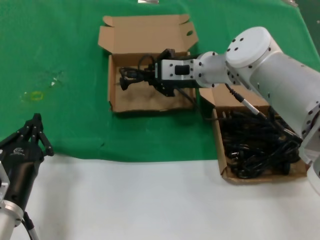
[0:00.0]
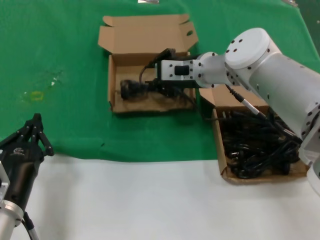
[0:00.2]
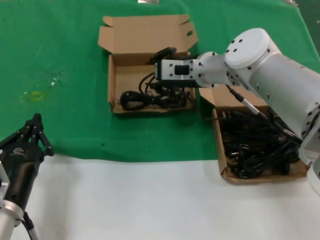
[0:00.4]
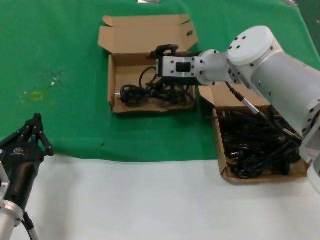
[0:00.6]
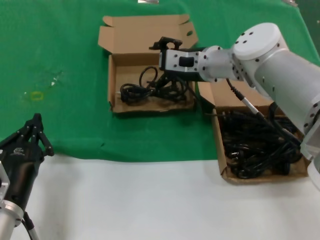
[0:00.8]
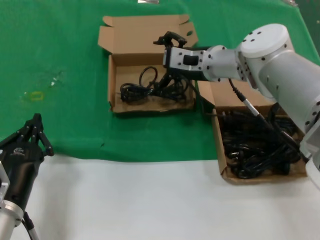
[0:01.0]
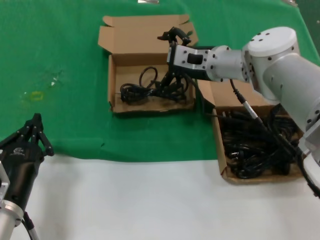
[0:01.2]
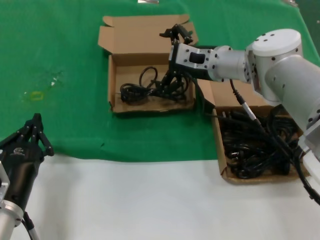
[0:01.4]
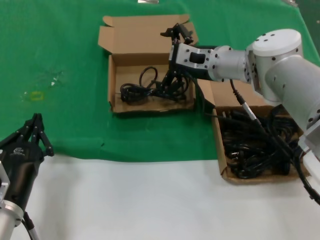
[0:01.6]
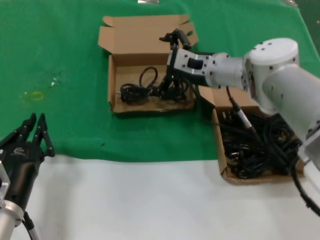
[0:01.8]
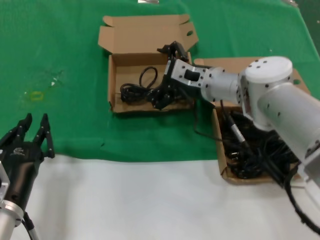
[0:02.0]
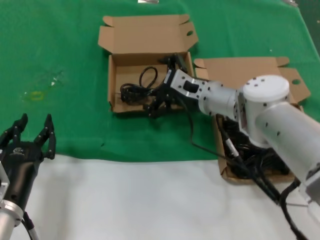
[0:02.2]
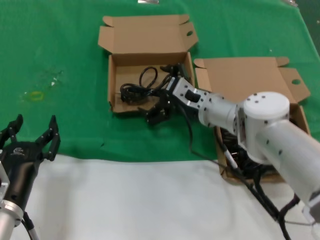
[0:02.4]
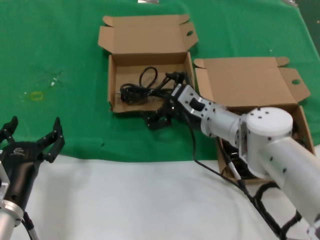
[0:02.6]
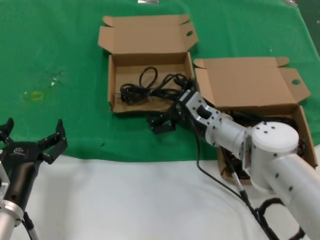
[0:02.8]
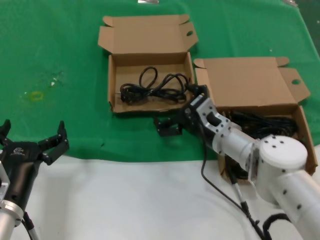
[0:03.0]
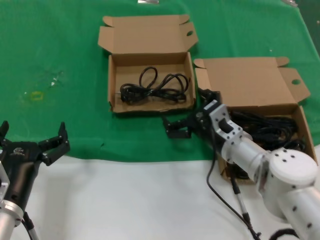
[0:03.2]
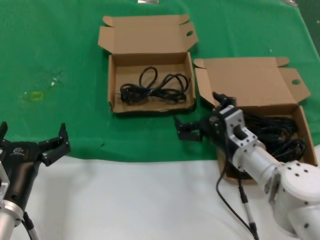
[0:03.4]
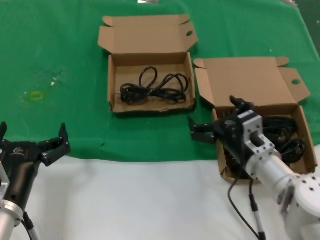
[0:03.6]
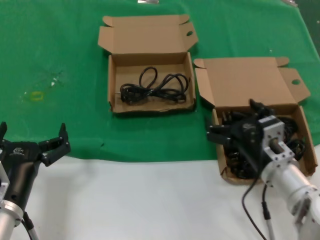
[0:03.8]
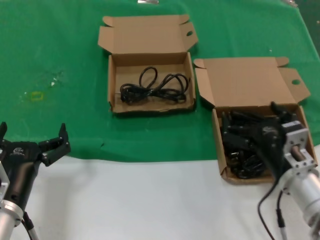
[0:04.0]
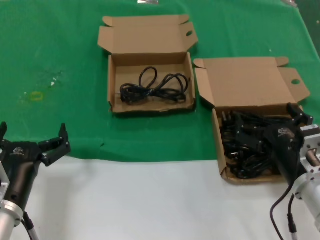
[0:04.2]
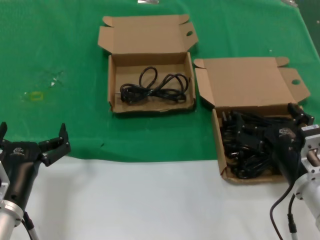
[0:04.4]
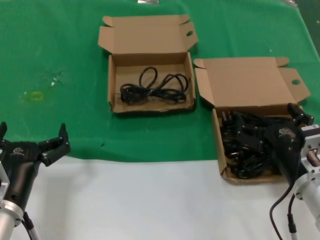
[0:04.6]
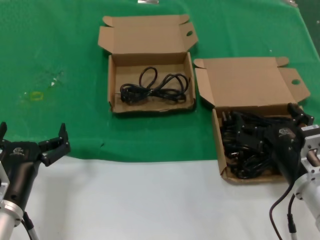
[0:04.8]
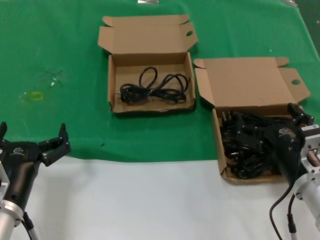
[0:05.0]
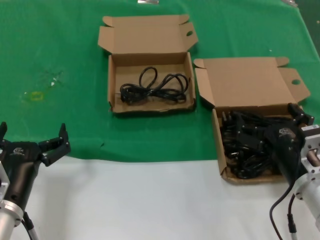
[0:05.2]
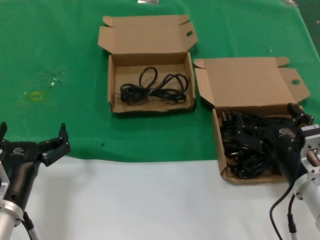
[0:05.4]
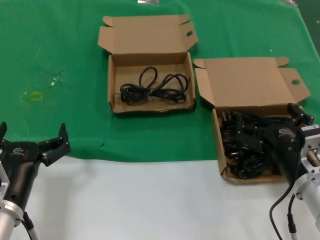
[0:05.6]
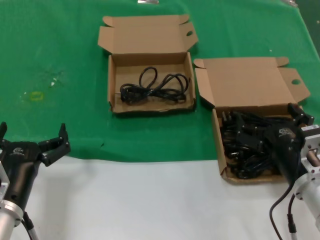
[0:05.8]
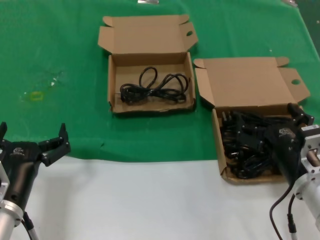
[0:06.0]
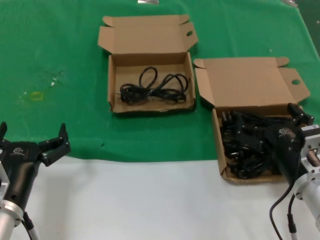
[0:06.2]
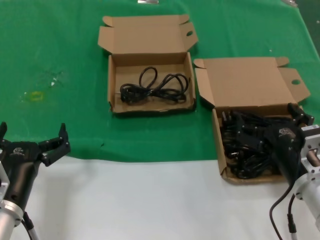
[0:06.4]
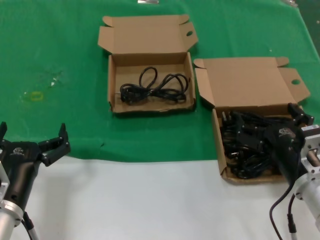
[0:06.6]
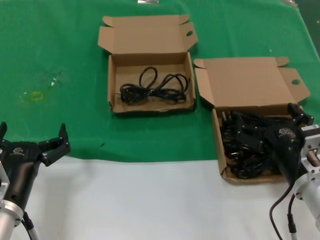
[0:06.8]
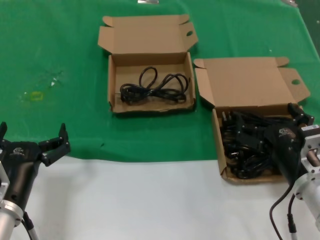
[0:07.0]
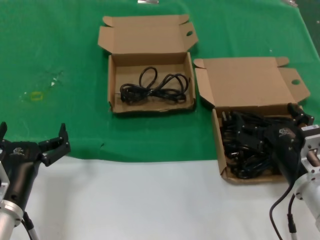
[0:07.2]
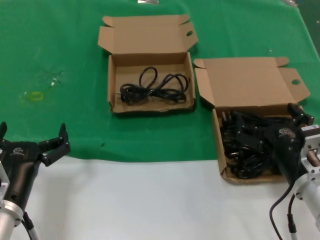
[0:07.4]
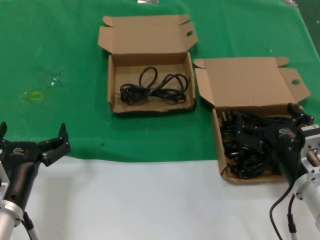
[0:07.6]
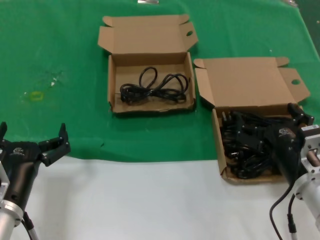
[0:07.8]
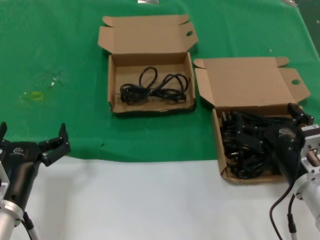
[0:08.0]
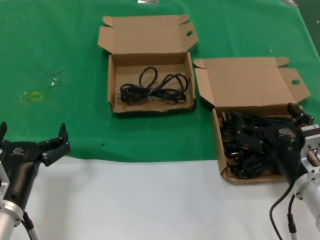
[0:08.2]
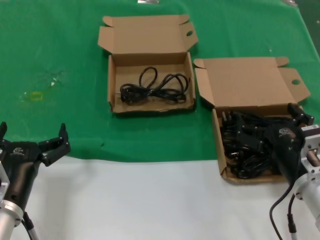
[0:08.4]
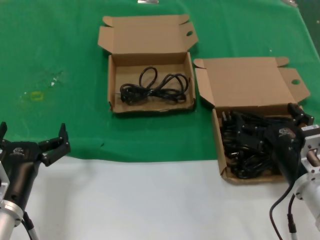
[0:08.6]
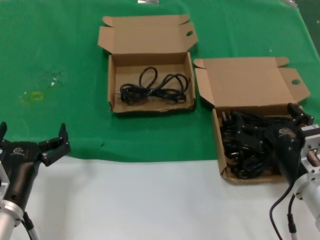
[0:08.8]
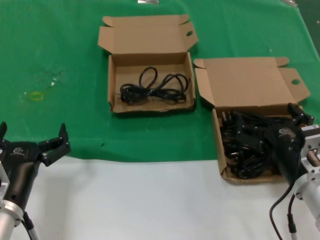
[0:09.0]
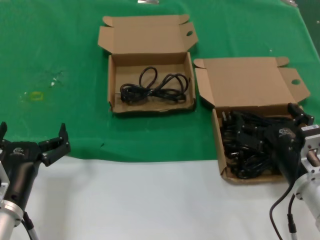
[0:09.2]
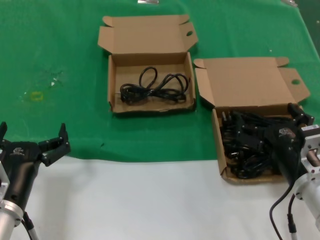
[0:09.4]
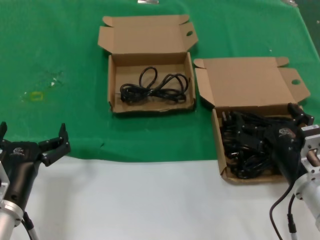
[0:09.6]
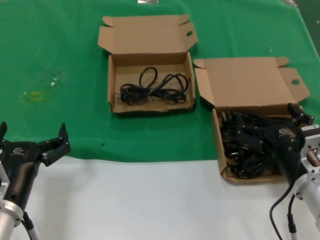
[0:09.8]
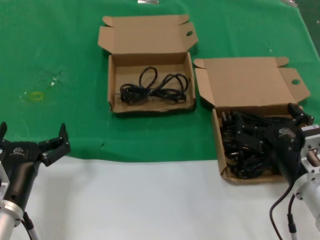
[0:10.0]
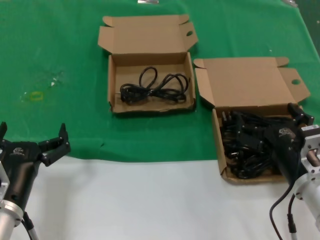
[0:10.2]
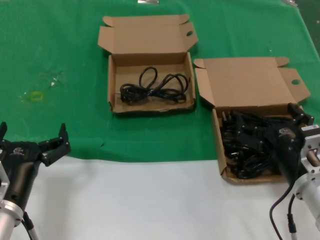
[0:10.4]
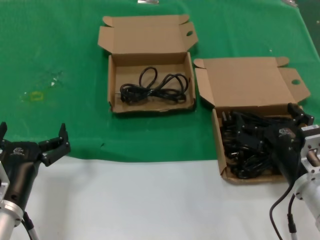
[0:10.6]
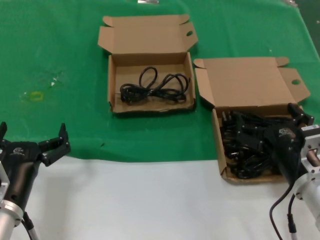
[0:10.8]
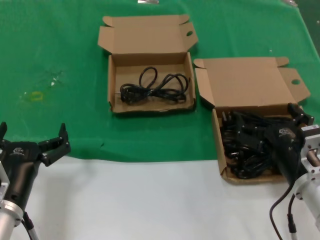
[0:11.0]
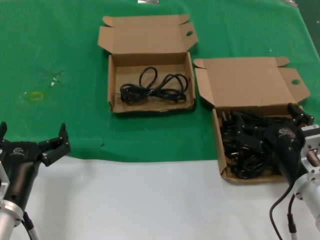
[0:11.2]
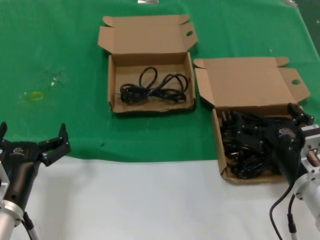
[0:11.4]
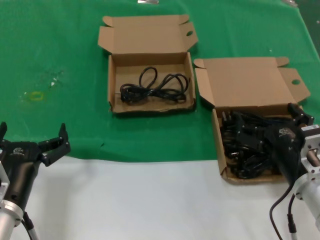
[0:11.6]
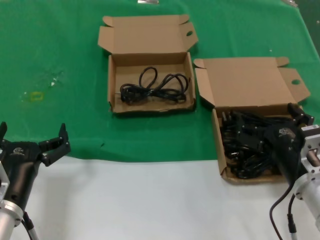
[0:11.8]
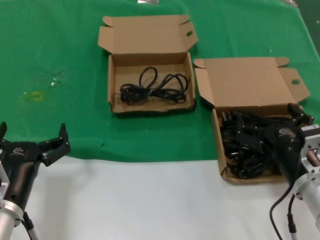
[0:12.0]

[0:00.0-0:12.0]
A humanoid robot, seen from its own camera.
Task of the whole recording: take the parts from the box containing them and put them into an empty box.
0:00.0 to 0:01.6: The hands stay close to where they were, moving slightly.
0:01.6 to 0:03.0: The right hand heads downward and backward, covering some 15 cm.
0:03.0 to 0:04.4: The right hand travels backward and to the right by roughly 20 cm.
0:04.4 to 0:12.0: Both hands stay put.
